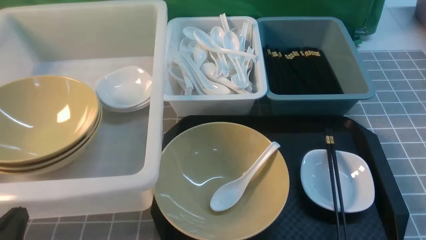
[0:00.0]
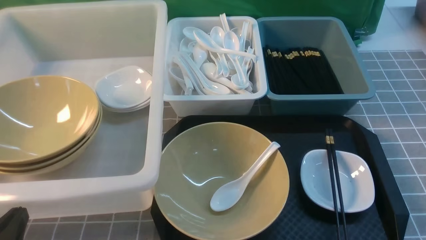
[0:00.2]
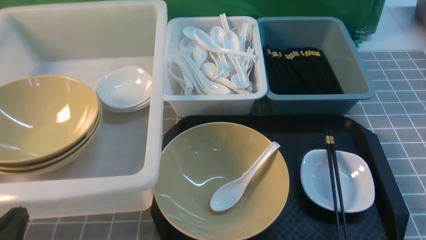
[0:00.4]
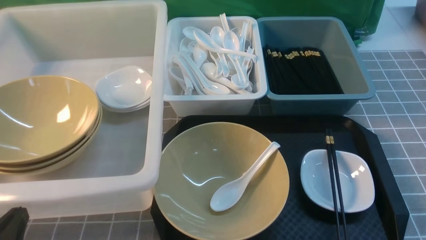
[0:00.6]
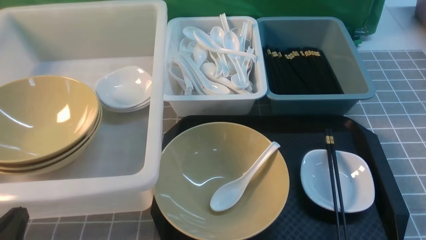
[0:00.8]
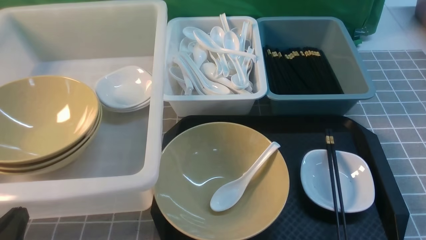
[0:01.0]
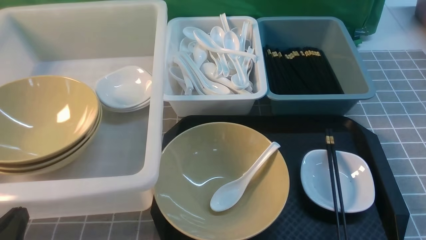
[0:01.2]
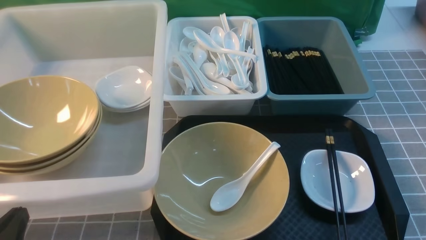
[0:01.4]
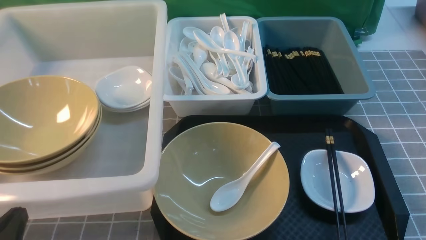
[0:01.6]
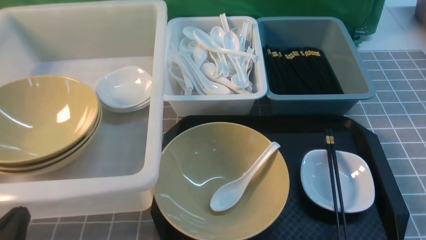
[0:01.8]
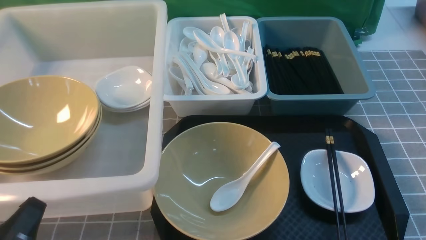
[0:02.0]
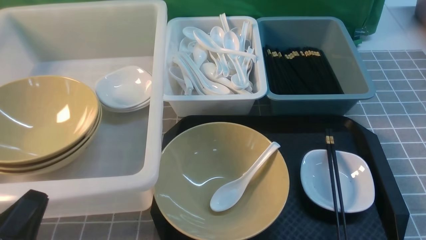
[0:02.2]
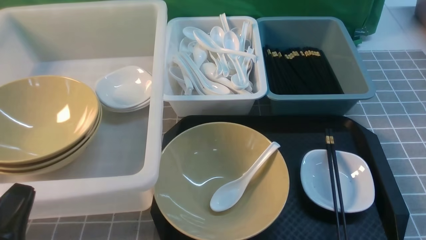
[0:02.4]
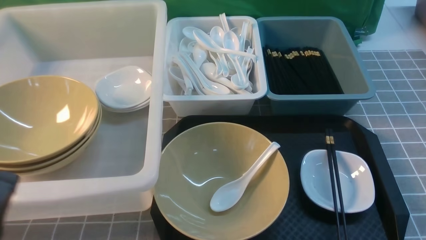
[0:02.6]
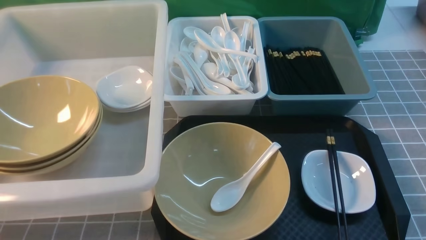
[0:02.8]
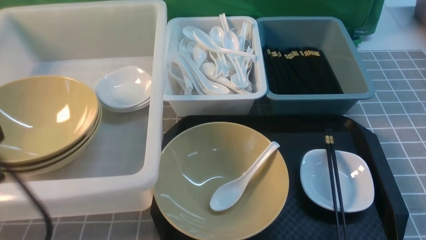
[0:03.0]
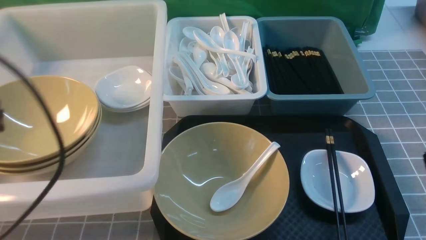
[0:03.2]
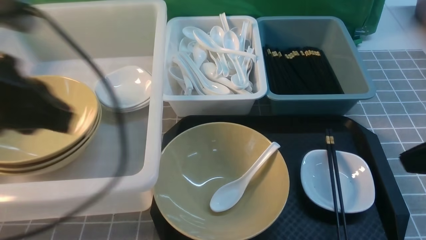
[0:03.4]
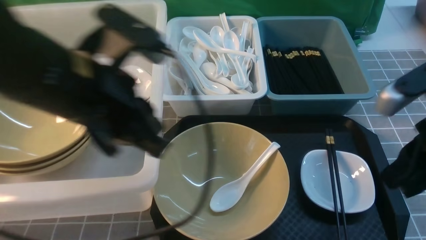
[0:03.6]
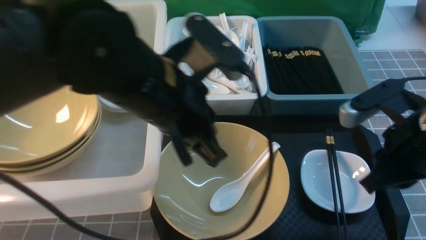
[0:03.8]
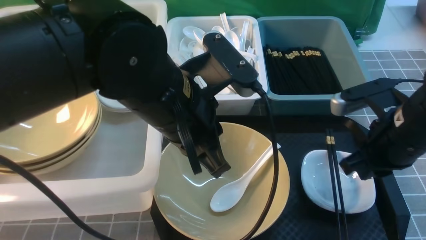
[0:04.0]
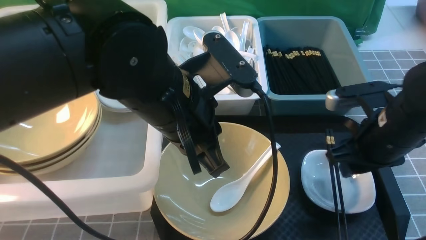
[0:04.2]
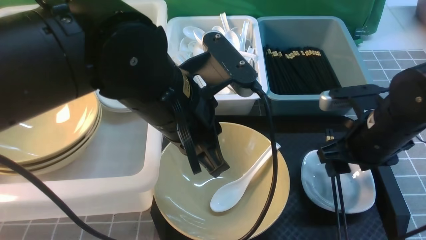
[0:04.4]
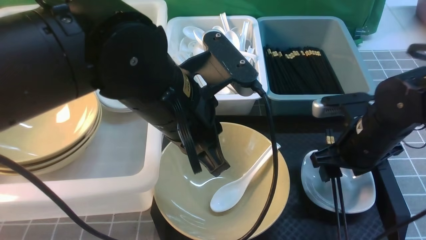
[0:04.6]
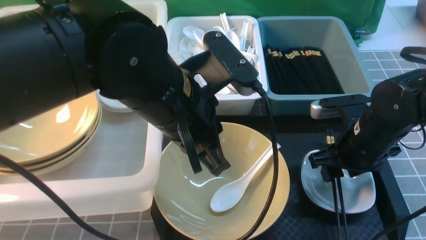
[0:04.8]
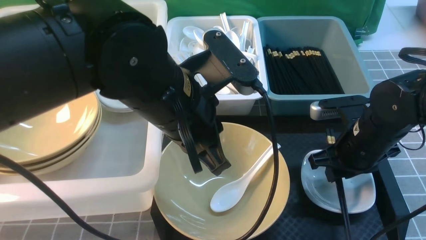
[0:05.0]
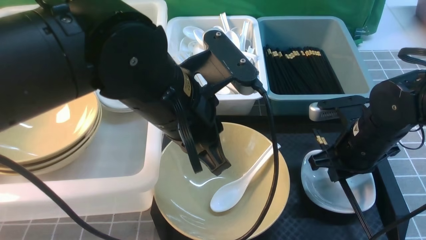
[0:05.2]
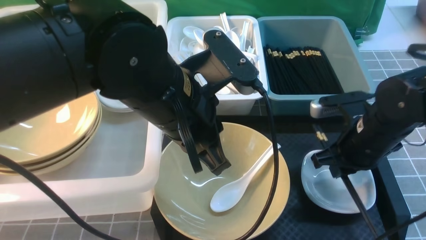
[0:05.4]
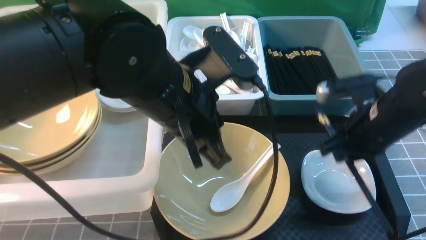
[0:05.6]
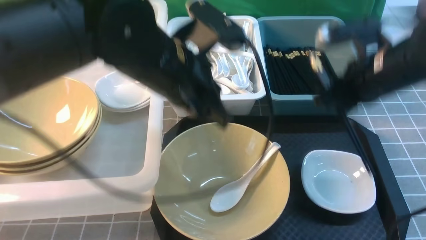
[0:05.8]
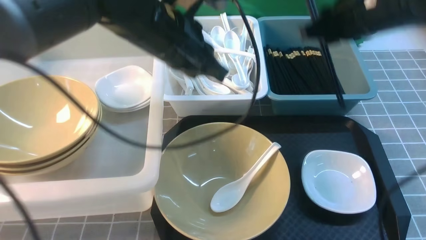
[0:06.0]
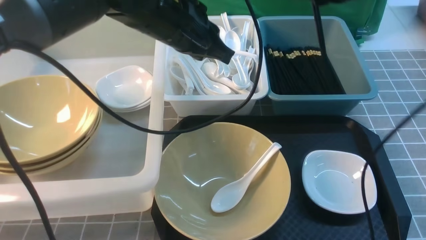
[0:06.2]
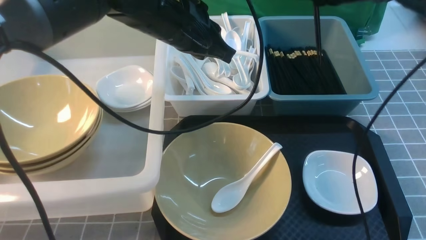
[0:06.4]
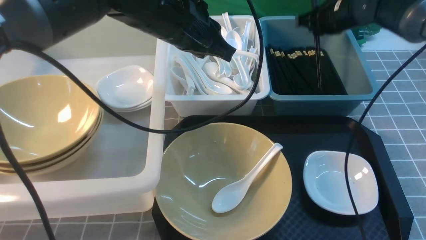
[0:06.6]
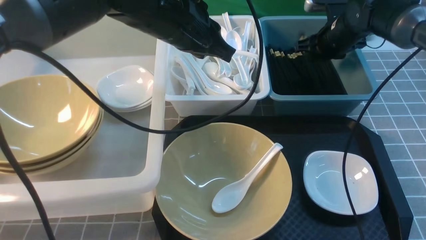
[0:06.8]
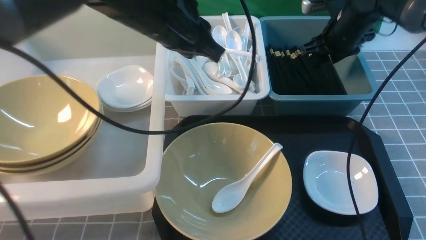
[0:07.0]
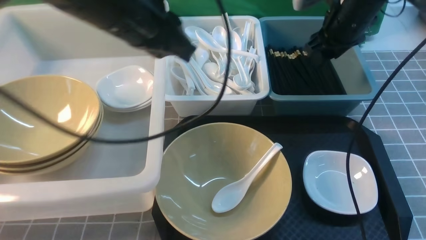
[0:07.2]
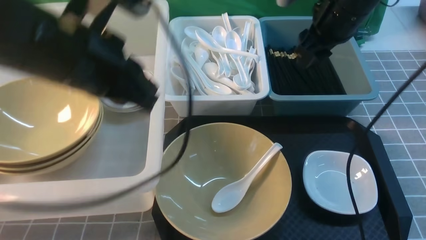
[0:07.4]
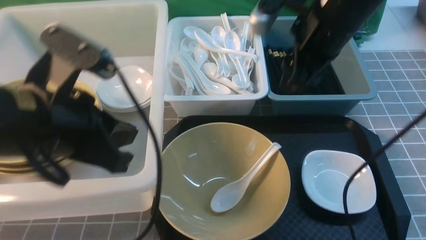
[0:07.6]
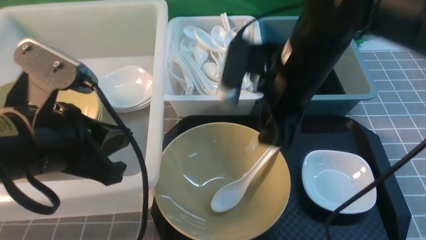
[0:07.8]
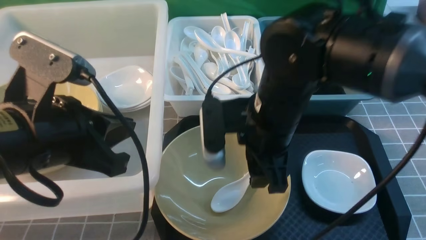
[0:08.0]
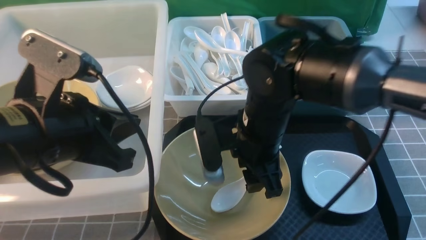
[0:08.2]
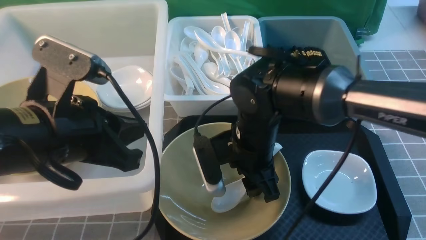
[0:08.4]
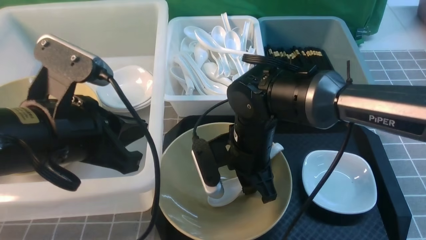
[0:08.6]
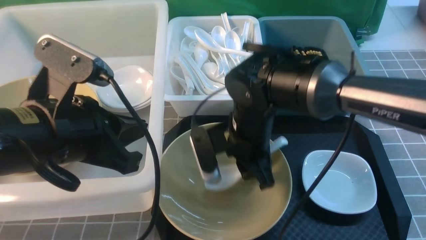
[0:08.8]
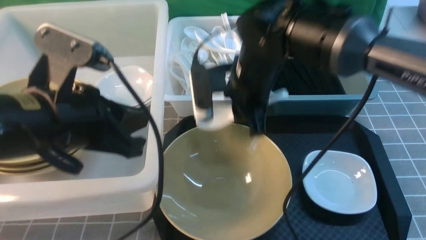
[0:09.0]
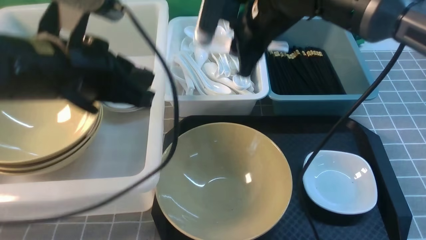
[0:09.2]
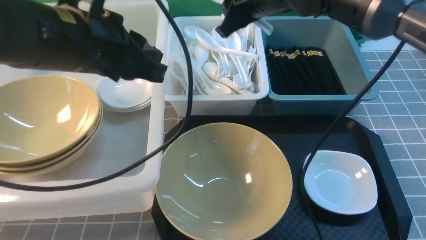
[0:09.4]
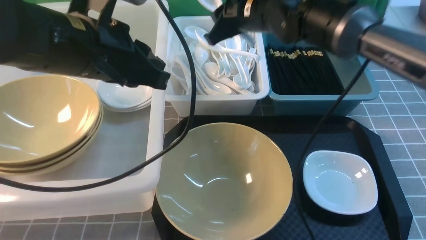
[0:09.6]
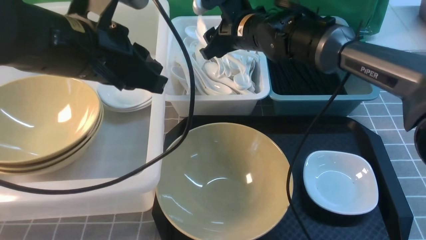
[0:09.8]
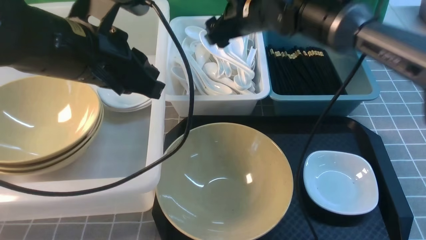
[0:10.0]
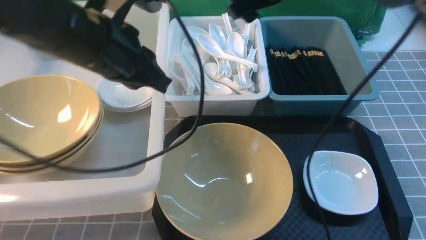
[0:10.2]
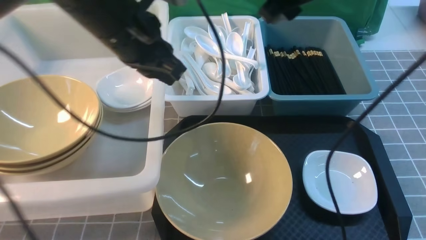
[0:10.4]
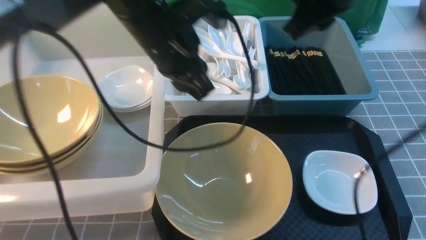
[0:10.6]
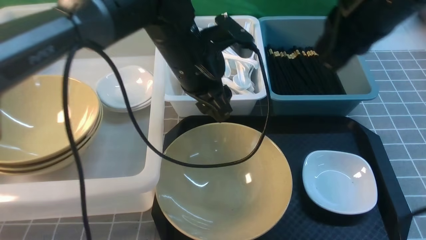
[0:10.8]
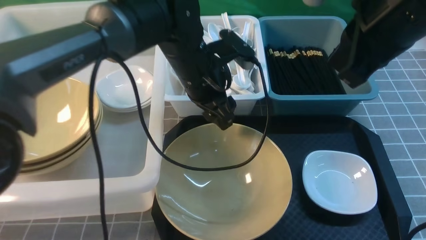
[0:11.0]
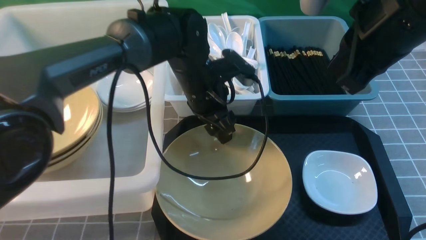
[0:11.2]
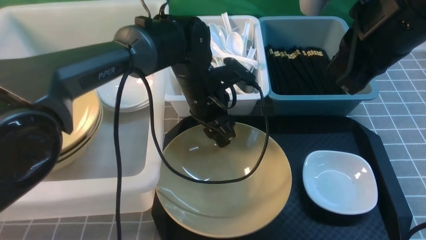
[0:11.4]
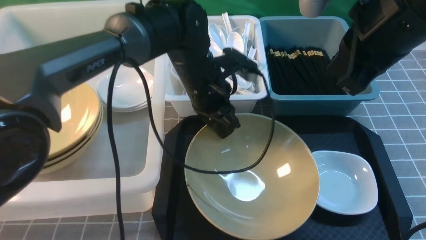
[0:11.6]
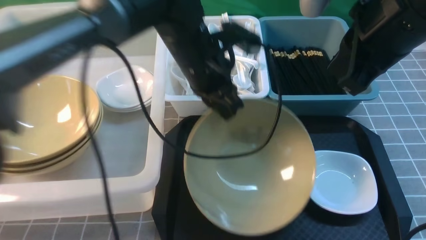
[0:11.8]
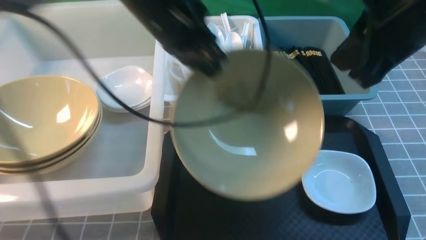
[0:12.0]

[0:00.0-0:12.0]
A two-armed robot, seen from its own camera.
Task of the whole recording: on grey table put chopsticks spoon bowls plates into blue grey white boxes.
Step, 0:00.0 to 0:05.2: use the right arm to grab the chopsticks.
Step, 0:05.4 to 0:06.8: use the right arm to put the chopsticks into the small storage box on the right.
Step, 0:07.0 to 0:08.8: use the right arm to grab the soup spoon in the middle.
Step, 0:09.0 to 0:09.8: use the right arm to put the soup spoon into the small storage box in the middle.
Step, 0:10.2 to 0:11.6: use the left arm to grab the yellow noodle bowl on the left.
0:01.6 to 0:03.0: The left gripper goes about 15 cm upward.
0:03.0 to 0:04.4: The left gripper is displaced to the right and forward by some 25 cm, while the right gripper travels forward by approximately 20 cm, and opens.
0:04.4 to 0:06.0: The left gripper shifts roughly 10 cm forward. The right gripper is displaced upward and forward by roughly 15 cm, and closes its fingers.
0:06.0 to 0:07.6: The right gripper moves to the left, approximately 5 cm, reaches some 15 cm forward, then returns, and opens up. The left gripper shifts approximately 15 cm to the left and backward.
0:07.6 to 0:09.0: The right gripper moves to the left and downward, roughly 15 cm, and closes.
0:09.0 to 0:10.4: The right gripper moves up and down over about 15 cm, changing direction 2 times, and opens up. Meanwhile the left gripper travels forward by some 10 cm.
0:10.4 to 0:12.0: The right gripper moves backward and to the right, approximately 15 cm, and closes; the left gripper moves some 15 cm downward and comes back, and opens and closes again.

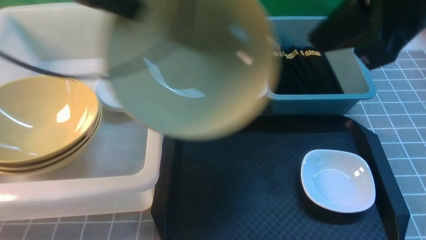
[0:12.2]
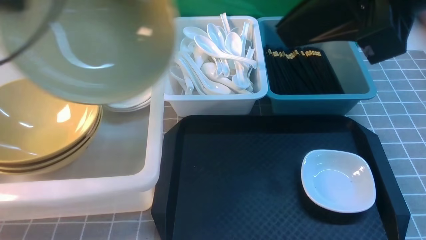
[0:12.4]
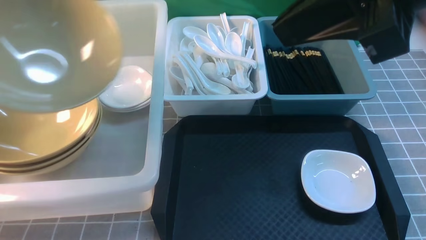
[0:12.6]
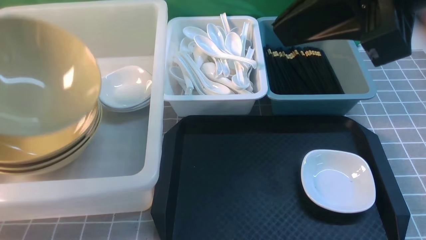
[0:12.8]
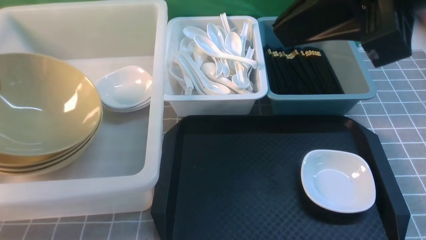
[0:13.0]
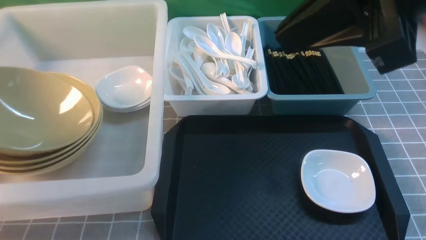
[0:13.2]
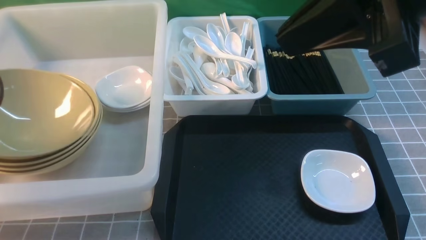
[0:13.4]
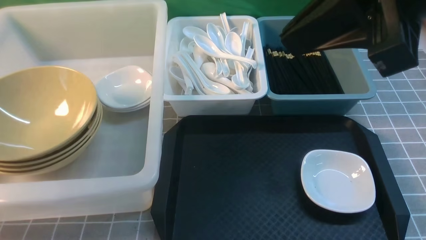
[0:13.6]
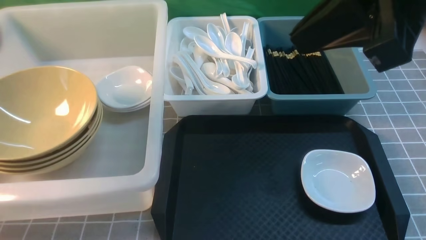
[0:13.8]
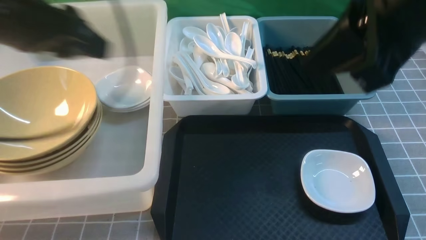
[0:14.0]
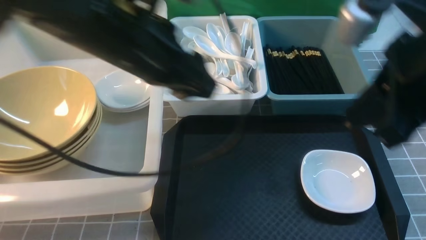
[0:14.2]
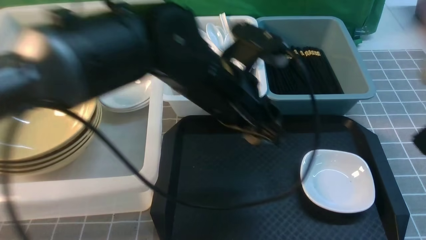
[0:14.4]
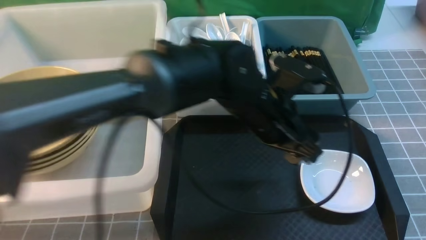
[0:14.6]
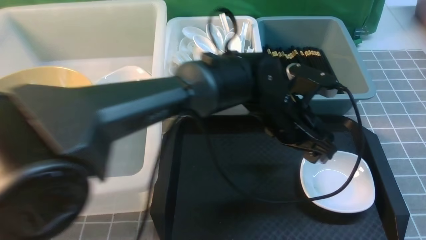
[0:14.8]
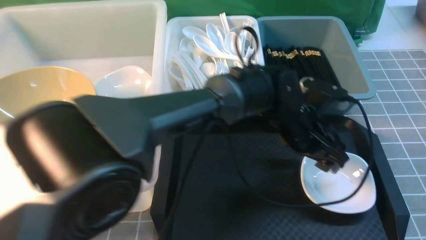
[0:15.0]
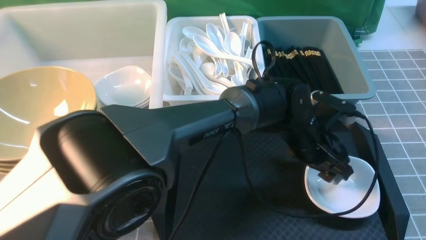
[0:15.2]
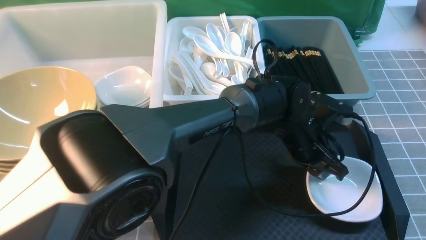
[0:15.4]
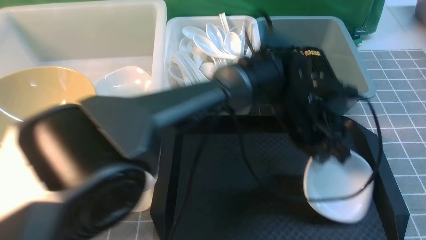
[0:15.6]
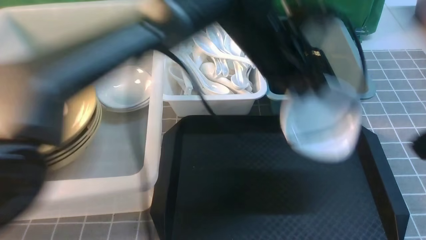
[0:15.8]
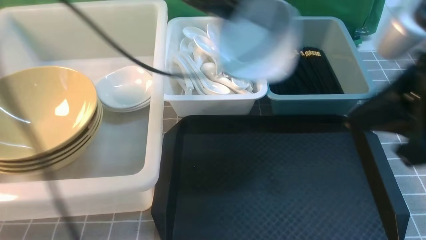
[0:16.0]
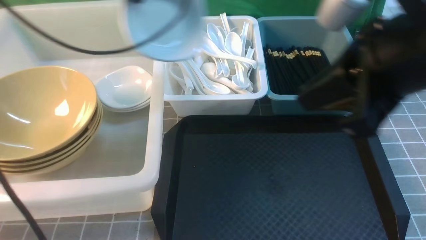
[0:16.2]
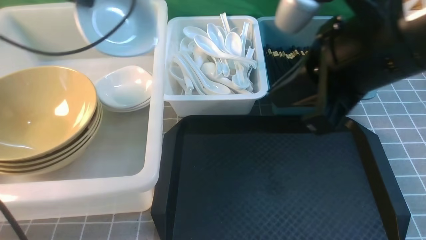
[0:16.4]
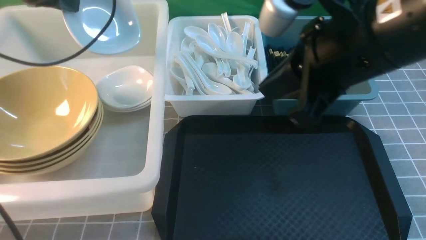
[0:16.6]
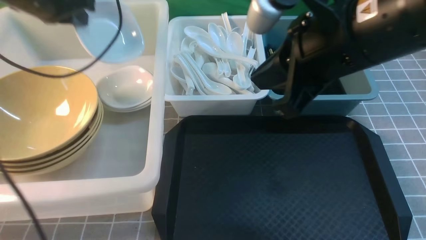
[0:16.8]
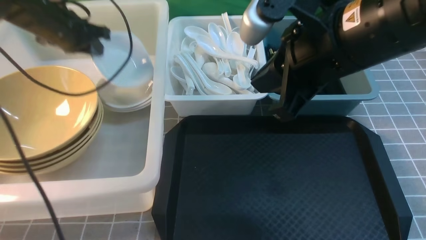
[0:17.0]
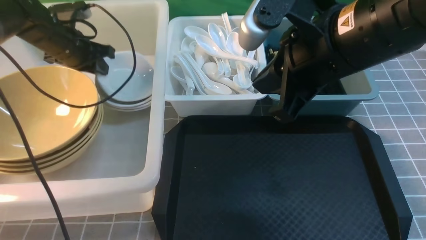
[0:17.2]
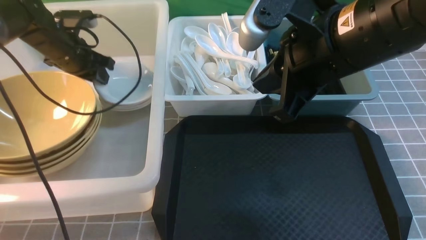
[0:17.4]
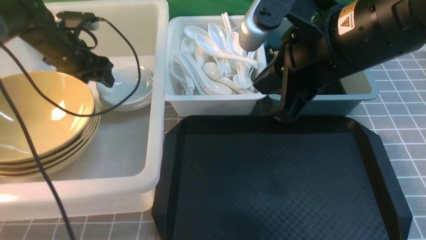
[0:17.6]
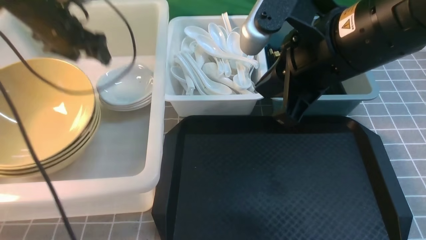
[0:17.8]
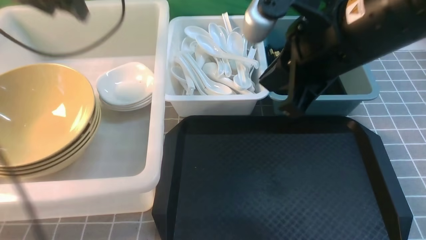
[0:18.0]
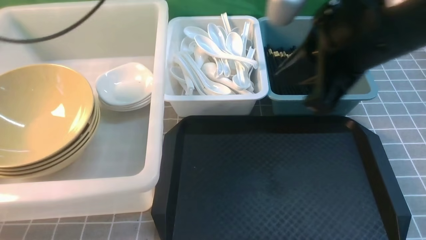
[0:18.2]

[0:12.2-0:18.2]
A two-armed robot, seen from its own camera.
Task of the whole recording: on grey table put chopsticks spoon bowls plates into blue grey white boxes.
Step, 0:12.2 to 0:13.4: use the left arm to put the noodle bowl into the large storage box on the left.
Step, 0:13.6 to 0:15.6: use the left arm to grab the plate.
Step, 0:15.8 to 0:17.6: use the left arm to put the plate into the large storage box on the left.
0:12.2 to 0:13.8: The left gripper is displaced to the left by roughly 20 cm, and opens.
0:13.8 to 0:15.2: The left gripper goes about 50 cm to the right and downward. Meanwhile the right gripper heads to the right, backward and downward, covering roughly 20 cm.
0:15.2 to 0:16.6: The right gripper heads to the left and forward, covering about 20 cm; the left gripper shifts approximately 40 cm to the left and upward, and closes its fingers.
0:16.6 to 0:18.2: The left gripper moves roughly 15 cm downward and comes back, and opens.
